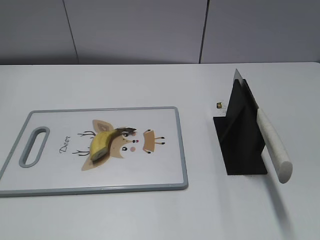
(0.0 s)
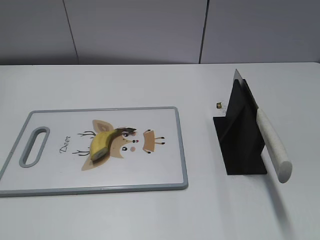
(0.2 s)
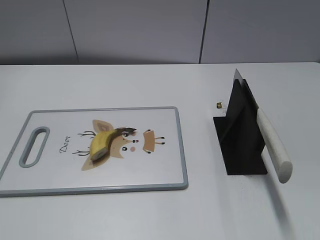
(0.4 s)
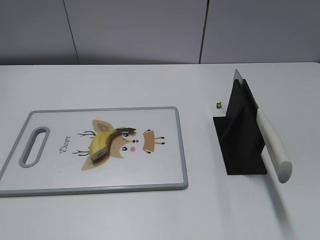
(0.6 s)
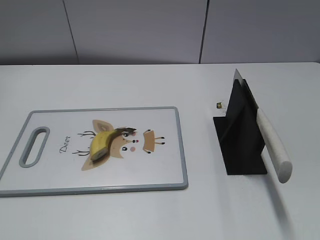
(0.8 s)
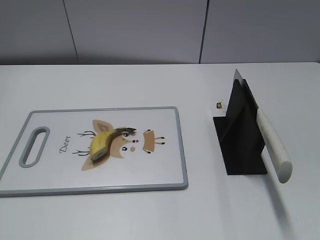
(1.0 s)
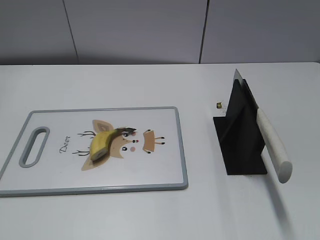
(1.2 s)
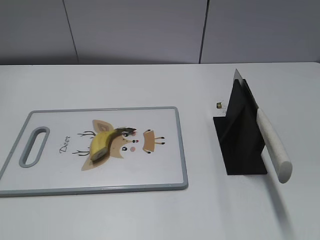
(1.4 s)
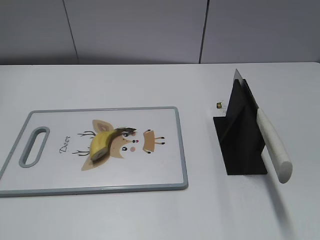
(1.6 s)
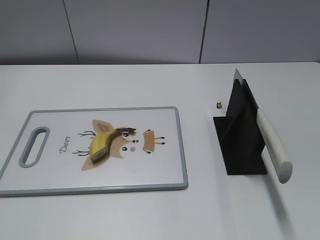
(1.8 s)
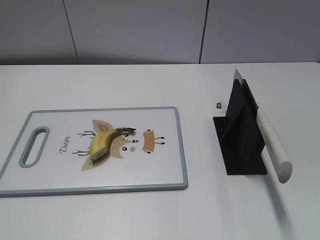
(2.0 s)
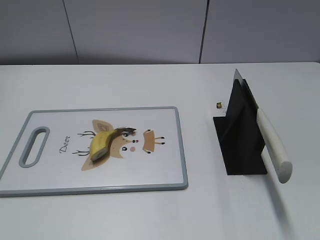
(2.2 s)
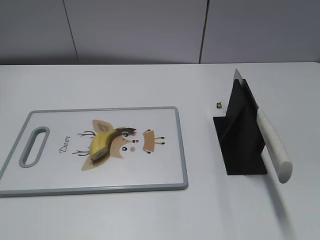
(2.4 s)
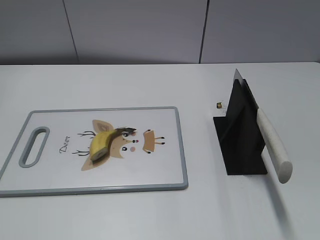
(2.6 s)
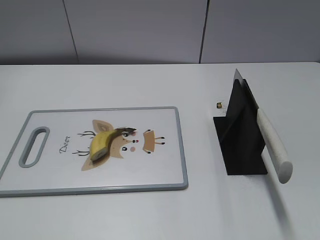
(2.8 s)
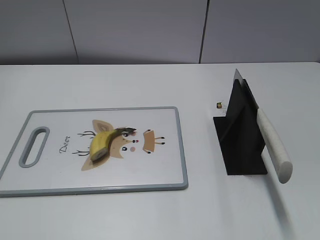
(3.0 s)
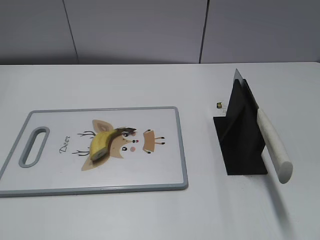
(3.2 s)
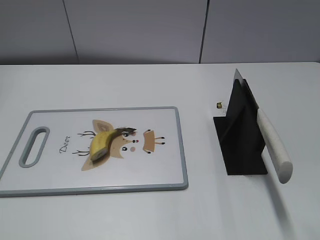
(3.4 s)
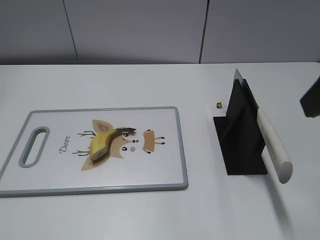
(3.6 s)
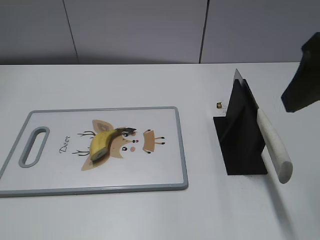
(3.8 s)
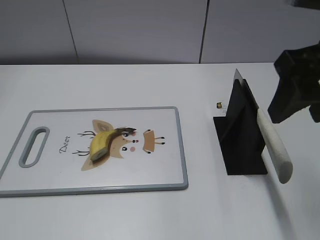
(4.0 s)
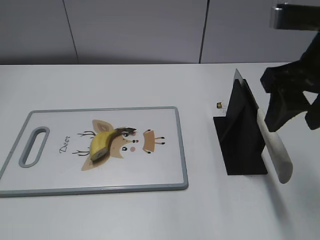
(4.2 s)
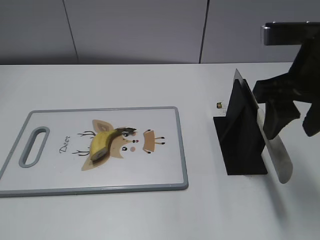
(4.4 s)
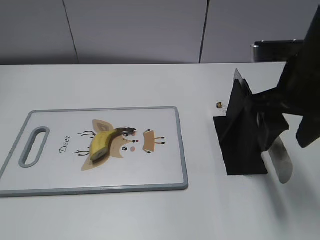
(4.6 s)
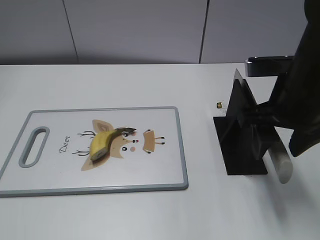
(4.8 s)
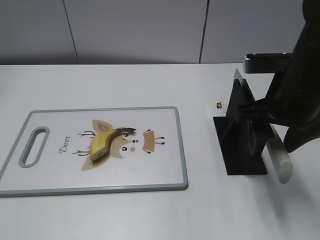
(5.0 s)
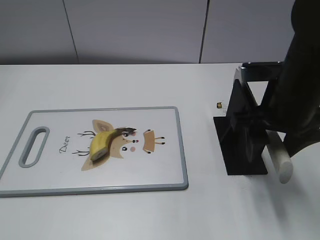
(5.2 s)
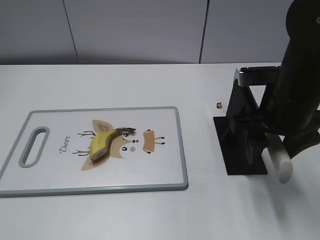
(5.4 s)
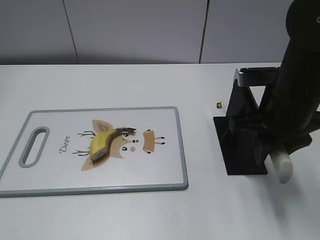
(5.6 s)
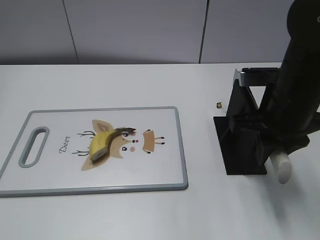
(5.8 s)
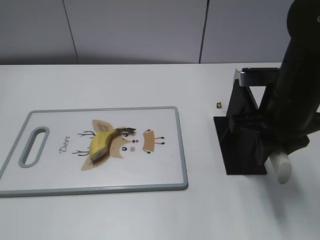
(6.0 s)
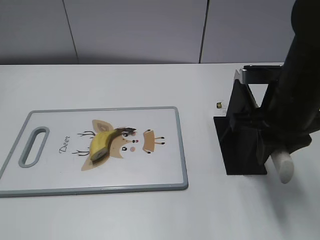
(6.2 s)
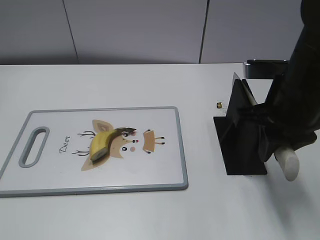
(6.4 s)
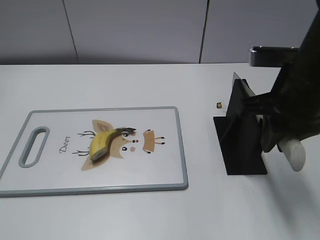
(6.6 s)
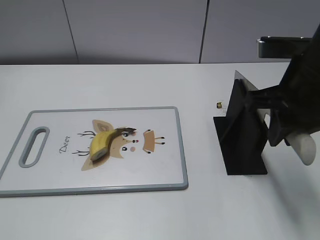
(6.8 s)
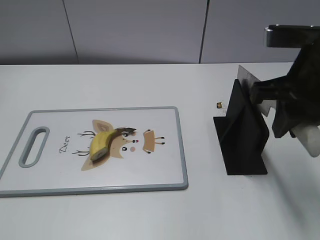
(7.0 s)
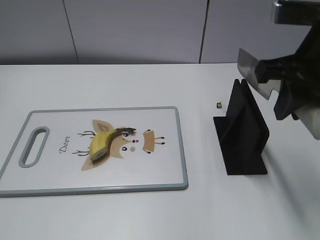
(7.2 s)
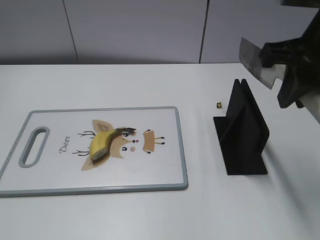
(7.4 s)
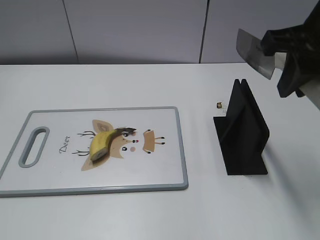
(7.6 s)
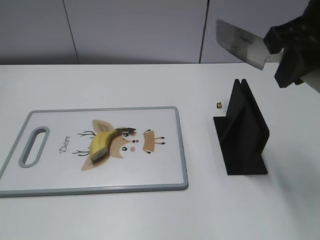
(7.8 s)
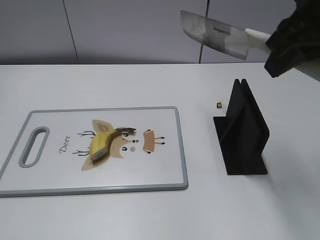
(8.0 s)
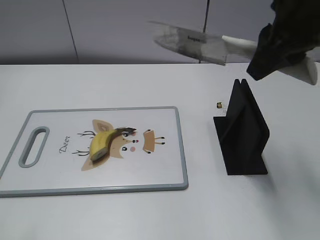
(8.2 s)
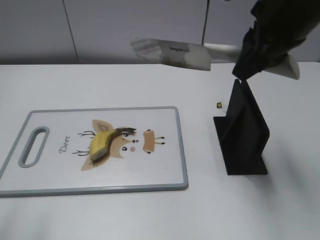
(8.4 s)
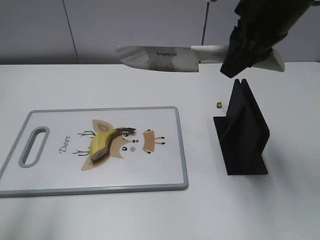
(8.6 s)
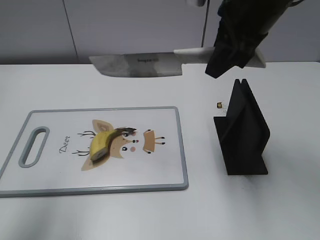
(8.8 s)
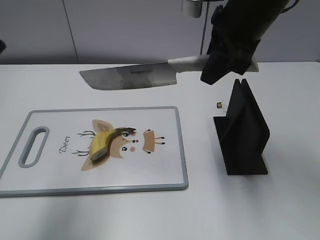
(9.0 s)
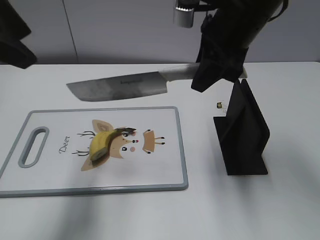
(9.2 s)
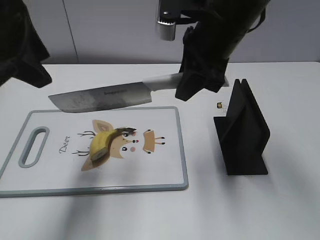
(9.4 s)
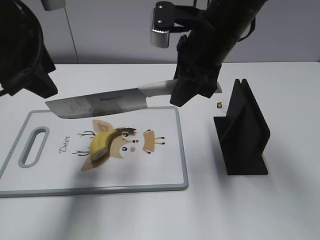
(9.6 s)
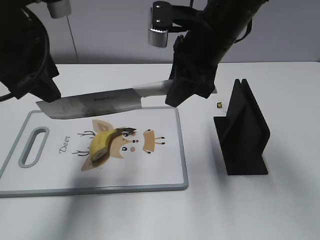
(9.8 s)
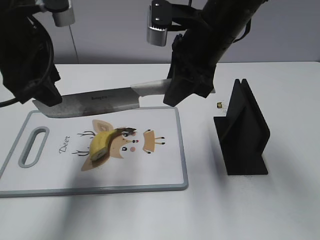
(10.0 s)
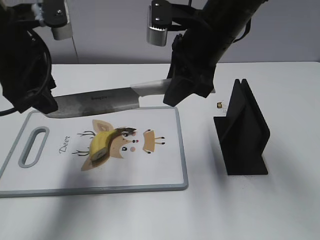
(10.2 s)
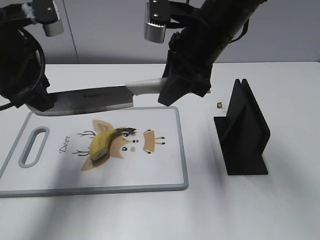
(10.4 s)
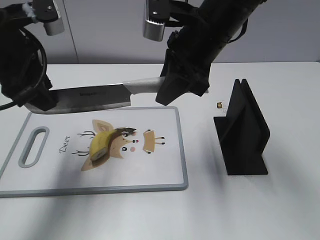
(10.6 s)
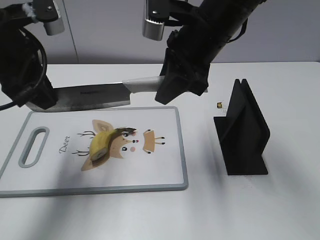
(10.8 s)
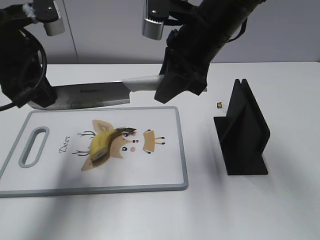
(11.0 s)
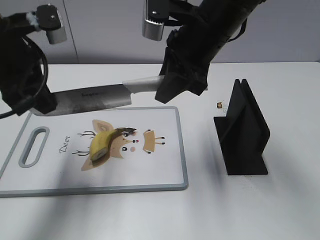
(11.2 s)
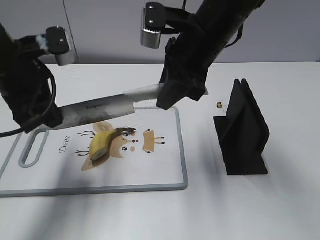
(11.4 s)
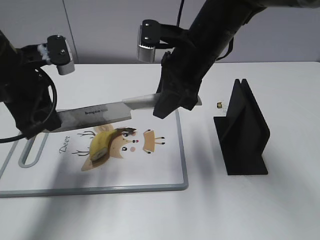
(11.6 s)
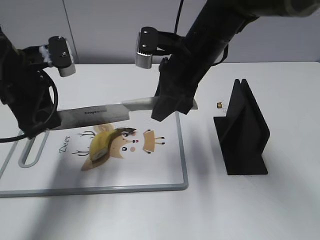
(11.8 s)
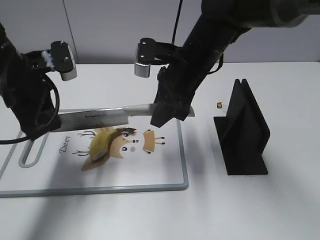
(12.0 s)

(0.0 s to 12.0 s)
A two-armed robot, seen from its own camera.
Task of the whole recording: cut banana.
Step, 0.0 s - 7.2 s: Grab the knife handle with your right hand.
3.0 s - 4.4 s: The right gripper heads forward, to the left and downward, covering about 20 cm.
4.4 s - 6.0 s: The right gripper shifts some 5 cm downward, and closes.
6.0 s - 7.6 s: The right gripper is displaced upward by some 10 cm.
7.6 s - 9.0 s: The left gripper is displaced forward and upward by about 25 cm. The right gripper goes about 10 cm forward and to the left.
9.0 s - 10.4 s: The right gripper ends up approximately 5 cm from where it was. The left gripper shifts roughly 15 cm downward and forward.
10.4 s - 12.0 s: Both grippers travel together downward, approximately 5 cm. The left gripper closes up.

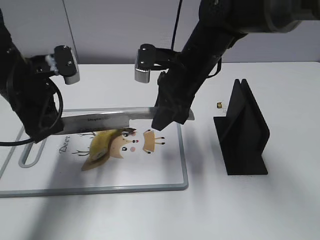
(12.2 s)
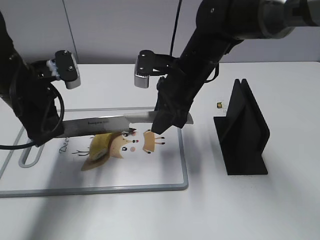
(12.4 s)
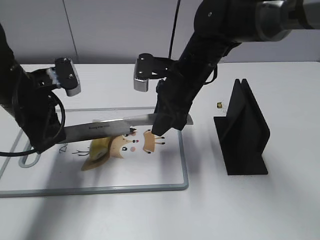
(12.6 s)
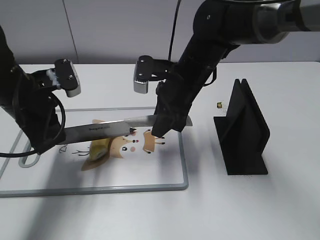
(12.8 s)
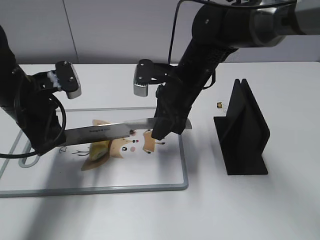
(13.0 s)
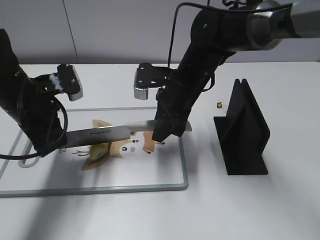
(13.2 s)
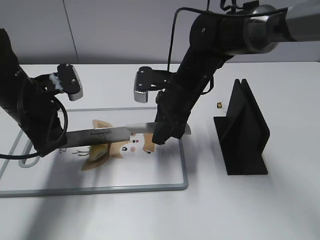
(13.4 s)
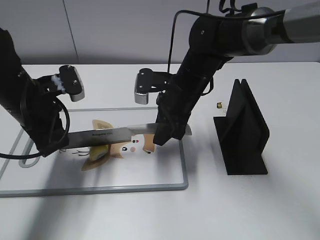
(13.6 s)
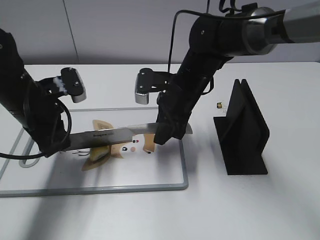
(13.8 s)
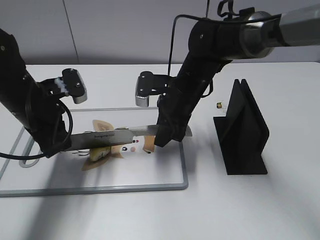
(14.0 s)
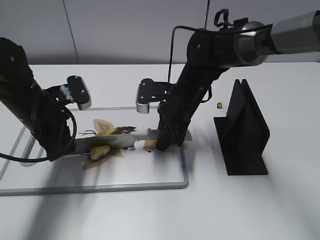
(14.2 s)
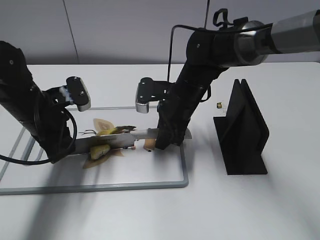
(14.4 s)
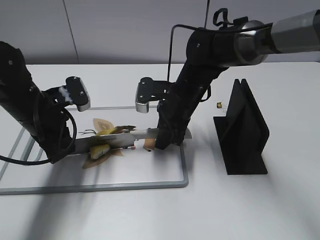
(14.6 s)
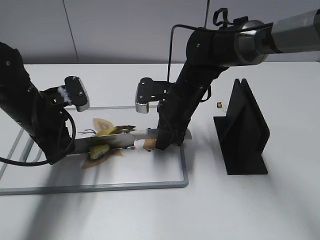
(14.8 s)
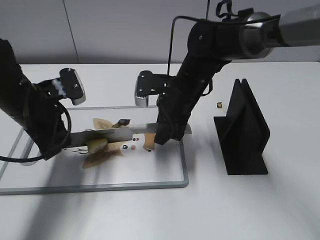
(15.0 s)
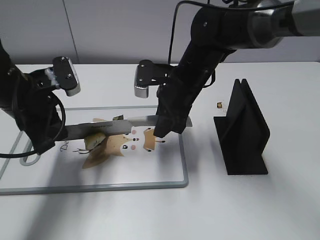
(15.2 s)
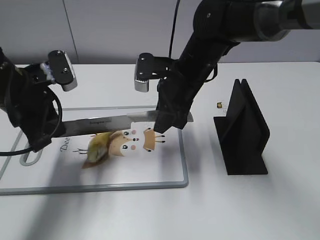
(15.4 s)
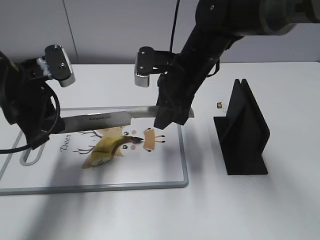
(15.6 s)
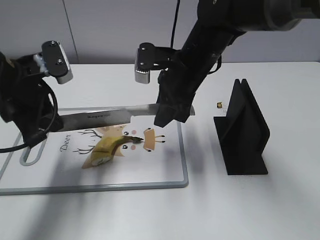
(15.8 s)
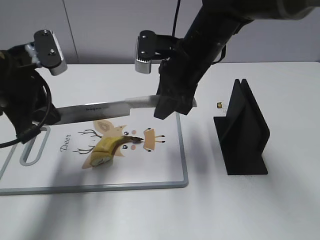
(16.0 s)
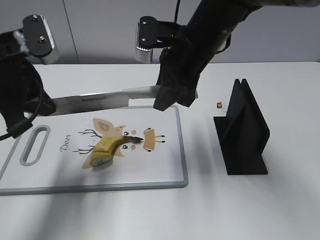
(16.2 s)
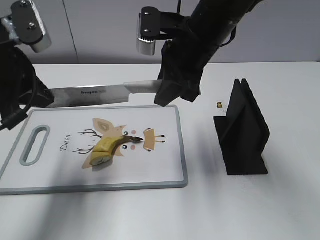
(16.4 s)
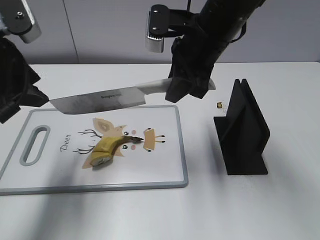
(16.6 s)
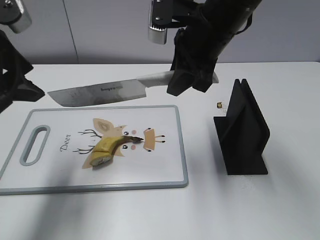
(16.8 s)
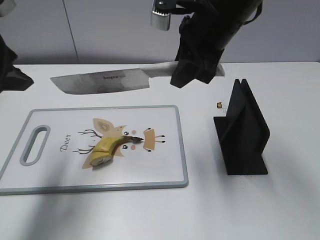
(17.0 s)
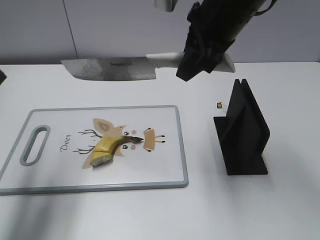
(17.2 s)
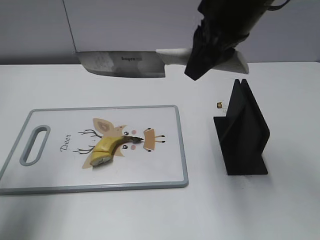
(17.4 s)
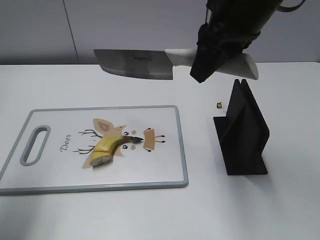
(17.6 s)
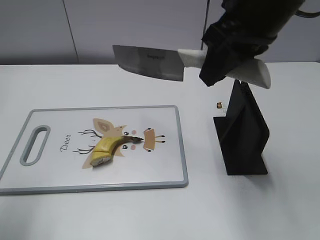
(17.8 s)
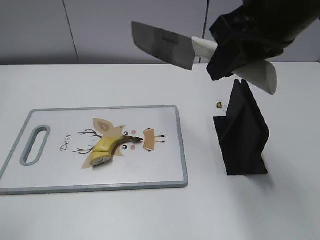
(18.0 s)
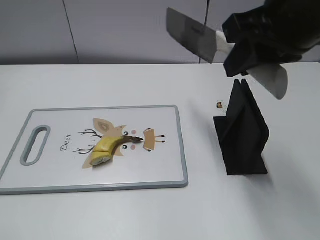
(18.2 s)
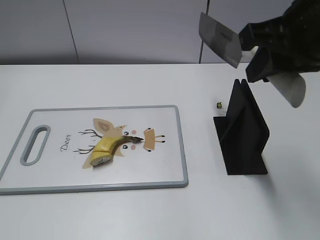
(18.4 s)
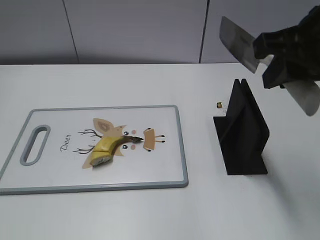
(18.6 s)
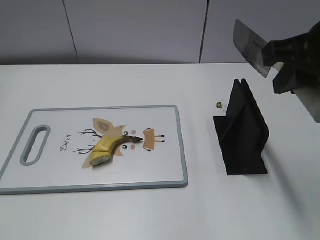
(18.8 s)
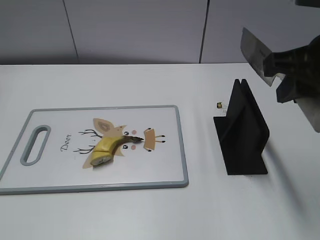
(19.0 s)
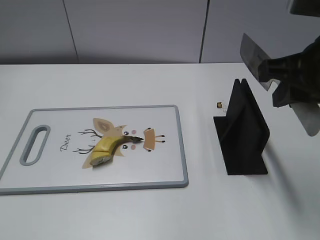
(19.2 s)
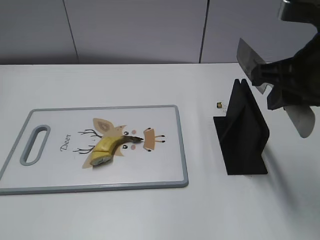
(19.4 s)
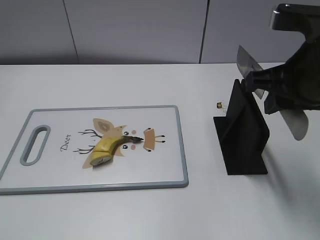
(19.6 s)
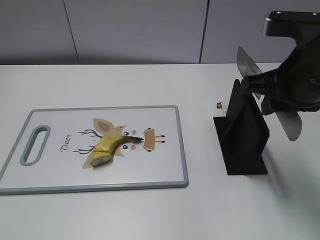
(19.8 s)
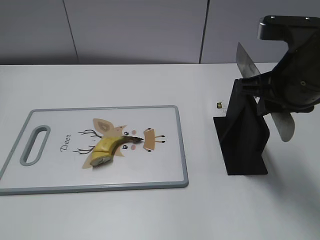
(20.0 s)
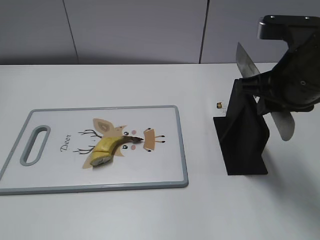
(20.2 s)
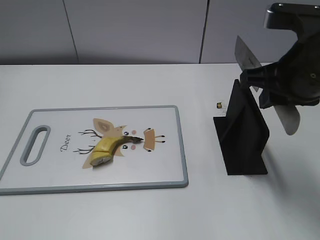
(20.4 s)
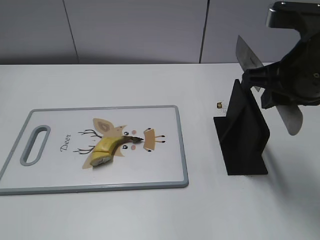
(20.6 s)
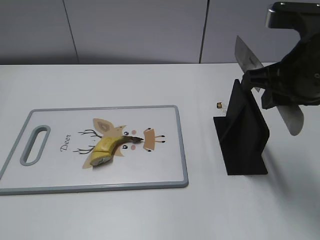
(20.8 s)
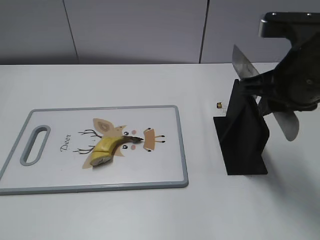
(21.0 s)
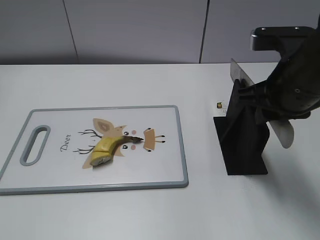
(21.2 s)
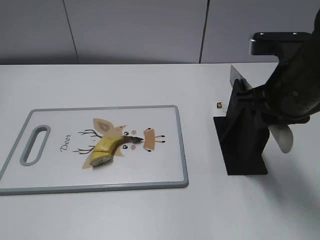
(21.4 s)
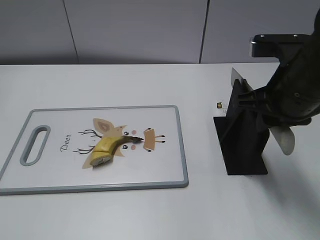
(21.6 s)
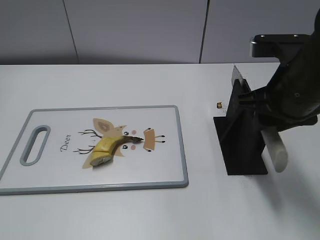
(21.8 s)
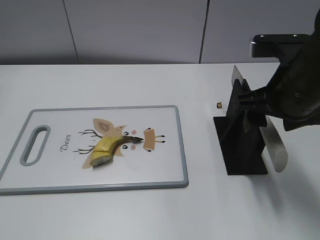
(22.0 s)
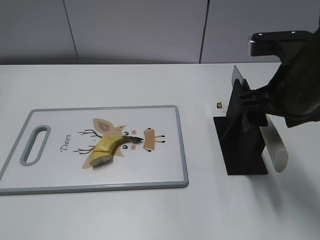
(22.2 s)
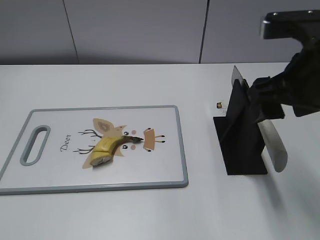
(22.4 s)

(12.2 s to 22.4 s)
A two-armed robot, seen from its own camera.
Task of the whole recording: cut banana.
Step, 14.2 s - 18.2 s: Cut the banana with your right hand.
Step, 18.6 s - 20.4 s: Lift the knife with your right hand.
12.2 s - 13.6 s: The right gripper moves downward, some 5 cm.
13.6 s - 15.2 s: The grippers move only a little.
15.2 s - 16.6 s: Both grippers travel together upward, roughly 10 cm. The left gripper opens.
16.6 s - 18.0 s: The left gripper goes some 15 cm backward and to the left; the right gripper is displaced upward, backward and to the right by roughly 15 cm.
18.0 s - 19.4 s: The right gripper travels downward and to the right by some 10 cm; the left gripper travels backward by approximately 15 cm.
19.4 s - 21.0 s: The grippers move only a little.
21.0 s - 22.4 s: The right gripper opens up.
